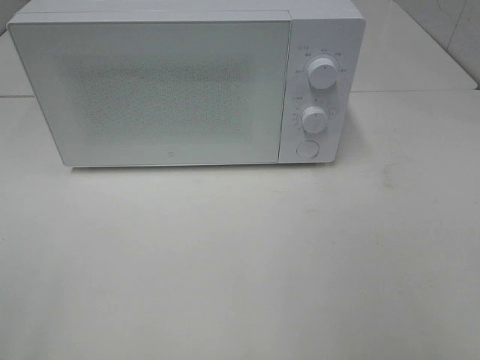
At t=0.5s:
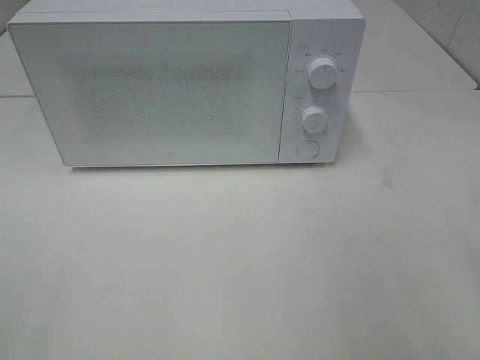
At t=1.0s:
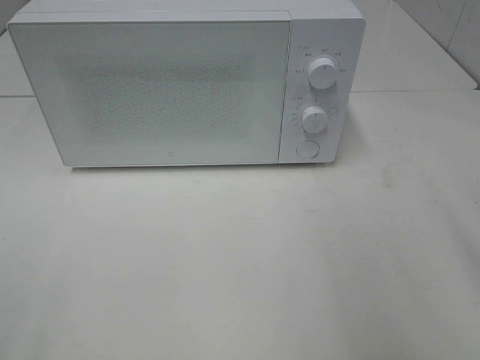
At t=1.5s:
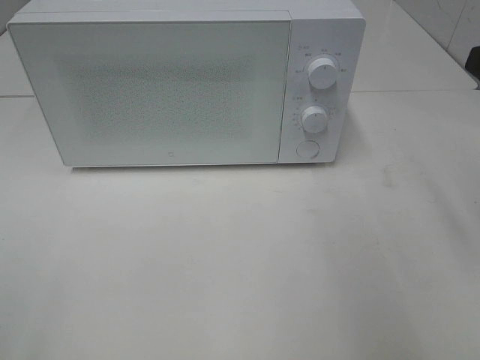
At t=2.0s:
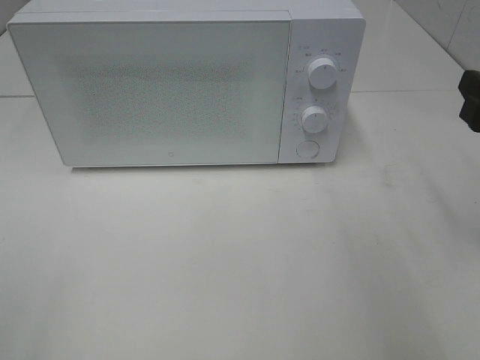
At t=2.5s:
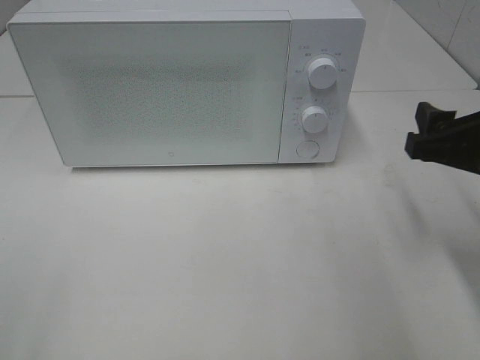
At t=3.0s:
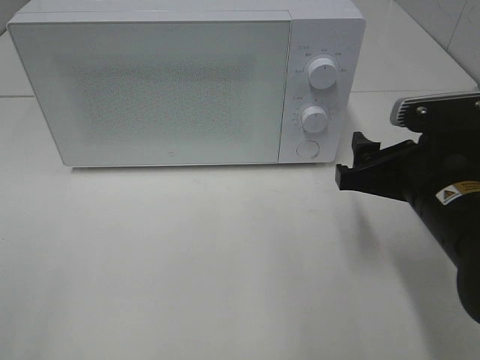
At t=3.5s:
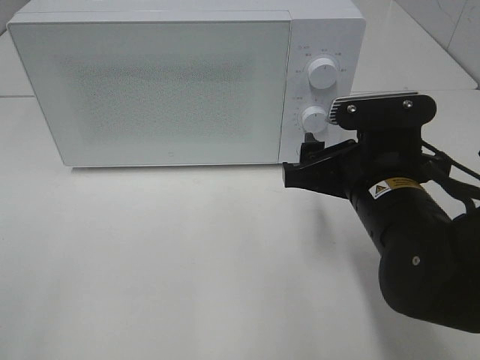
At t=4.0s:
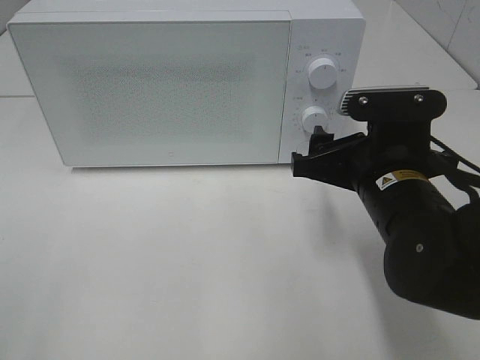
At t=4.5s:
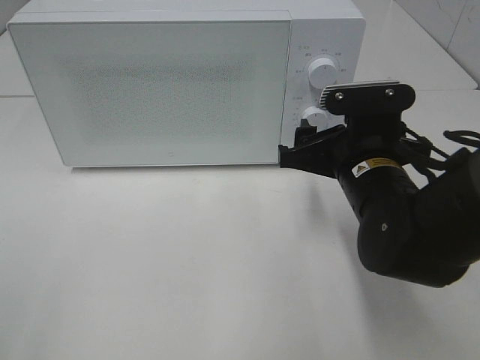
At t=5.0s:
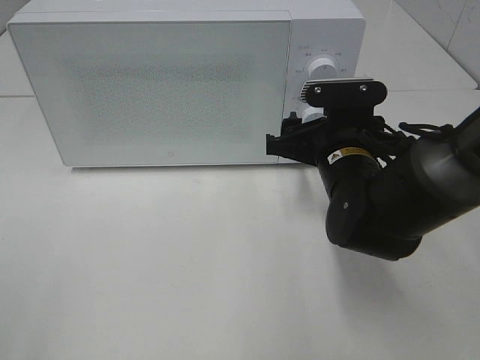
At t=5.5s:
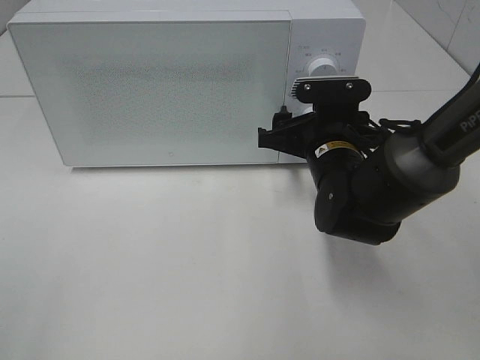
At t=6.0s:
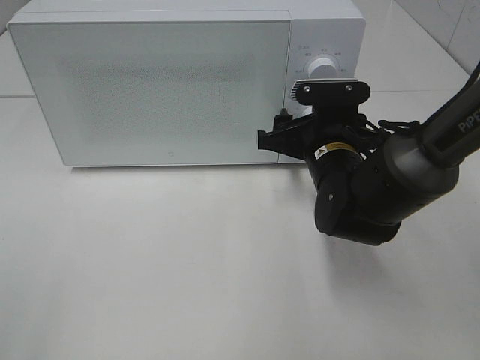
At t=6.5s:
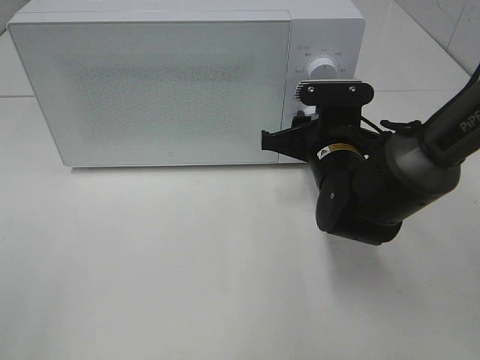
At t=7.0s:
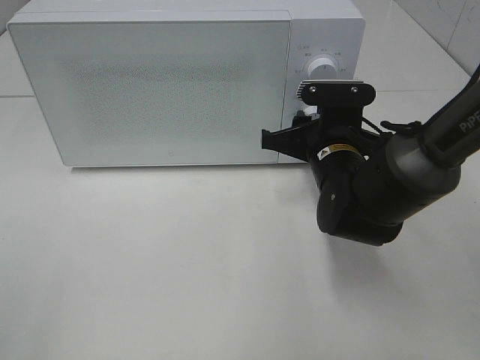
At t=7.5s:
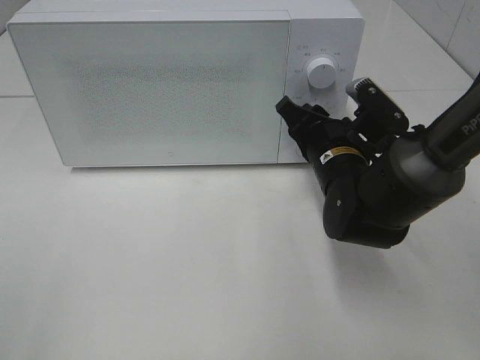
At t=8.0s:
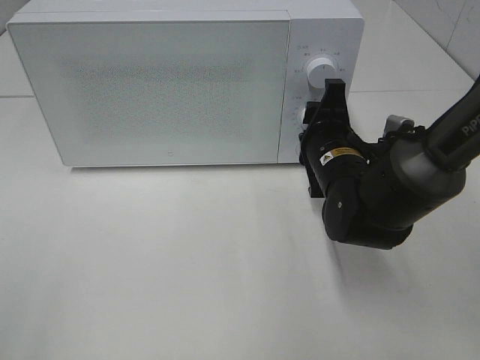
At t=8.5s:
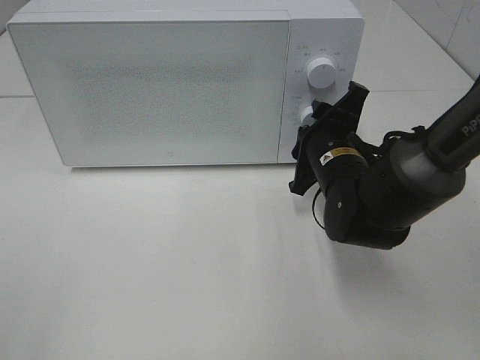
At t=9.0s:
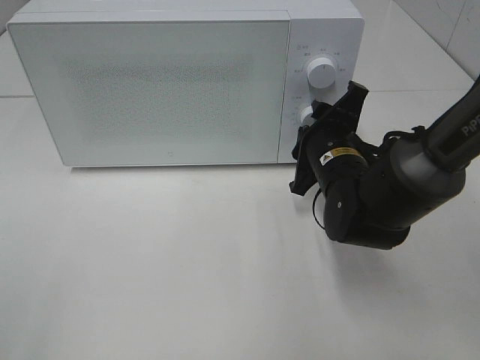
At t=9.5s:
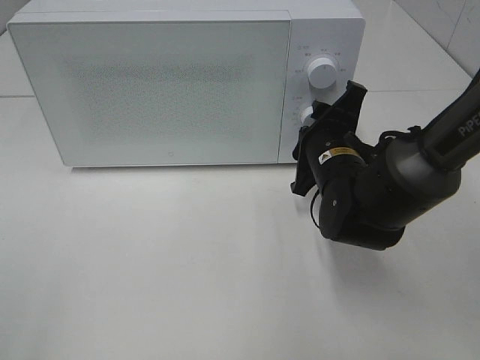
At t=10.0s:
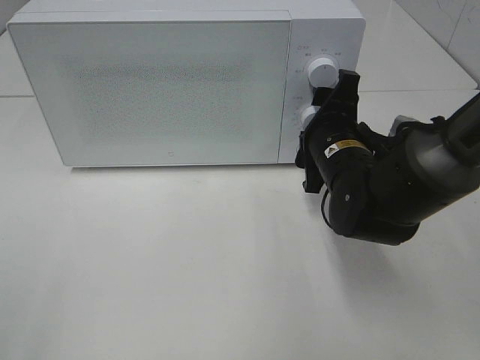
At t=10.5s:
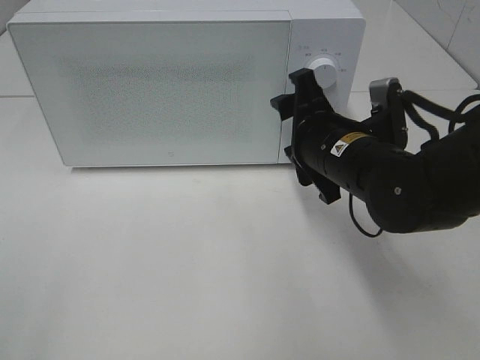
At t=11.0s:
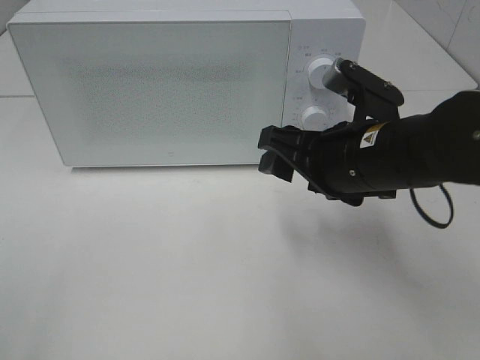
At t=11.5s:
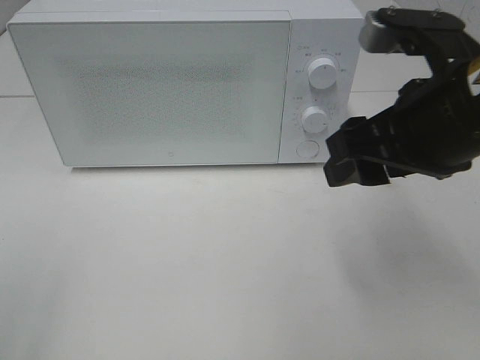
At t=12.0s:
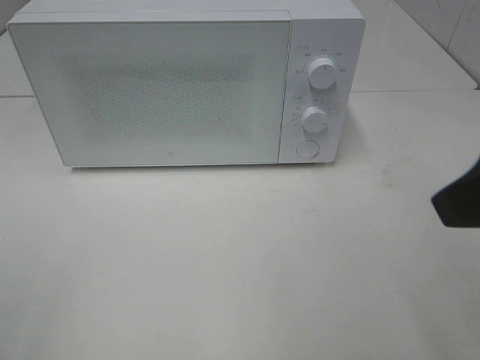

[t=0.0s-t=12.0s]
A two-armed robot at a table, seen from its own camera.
Task of the whole recording: Heat the burger.
Step, t=0.0s to t=9.5s: Right hand: twist timer button.
t=0.0s to t=2.0s: The right gripper shifts roughly 20 cm forward and downward.
t=2.0s to t=4.0s: The right gripper moves to the left and downward, roughly 15 cm.
t=4.0s to t=6.0s: The right gripper is displaced forward by roughly 10 cm.
t=6.0s to t=8.0s: The right gripper closes its fingers.
t=8.0s to t=10.0s: The grippers move only a little.
t=10.0s to t=12.0s: The right gripper moves upward, backward and to the right, about 30 cm.

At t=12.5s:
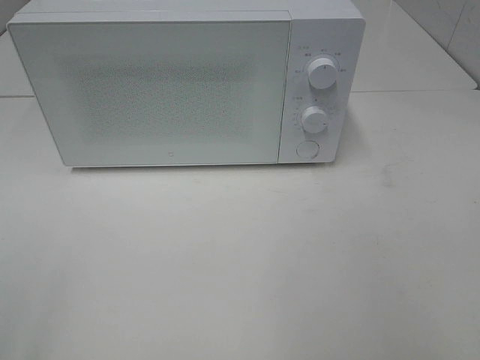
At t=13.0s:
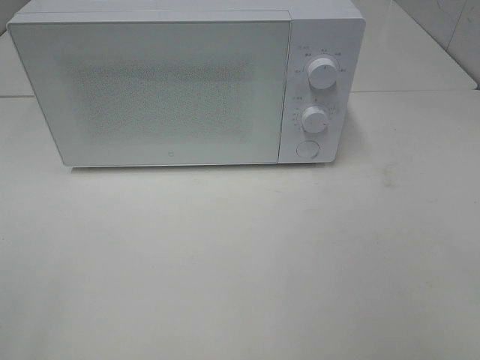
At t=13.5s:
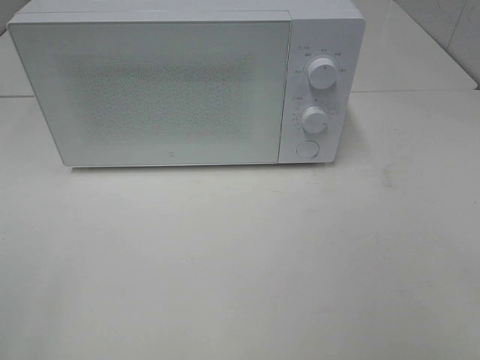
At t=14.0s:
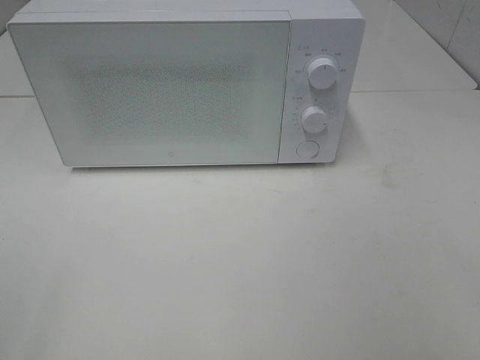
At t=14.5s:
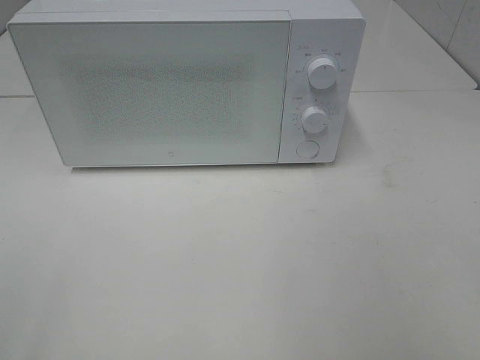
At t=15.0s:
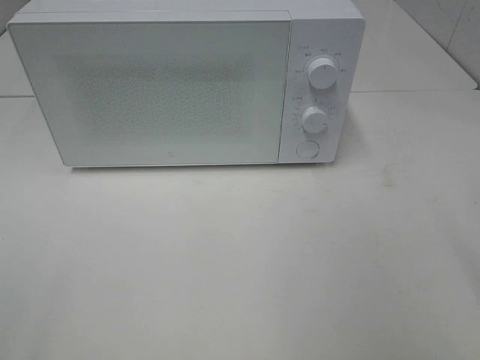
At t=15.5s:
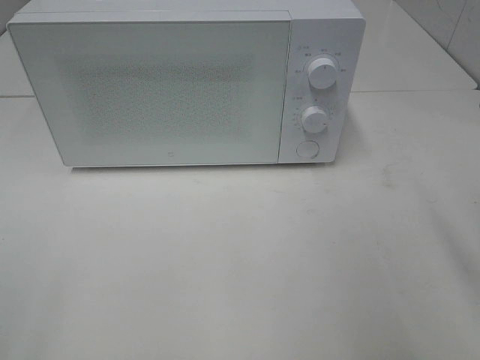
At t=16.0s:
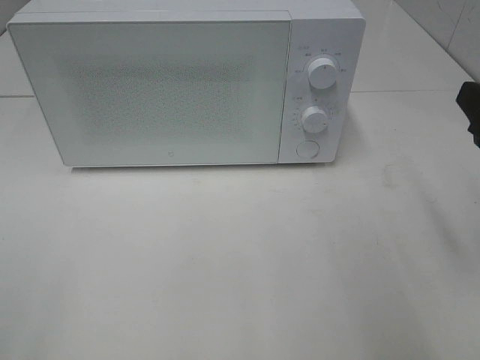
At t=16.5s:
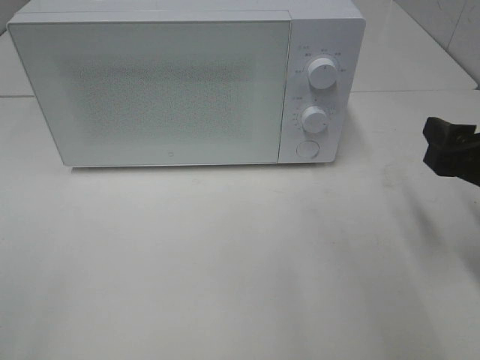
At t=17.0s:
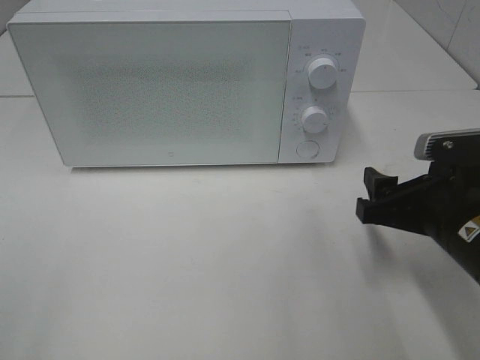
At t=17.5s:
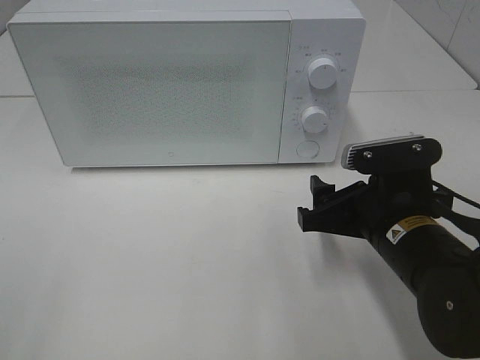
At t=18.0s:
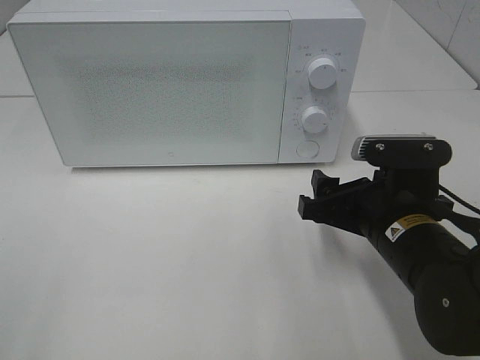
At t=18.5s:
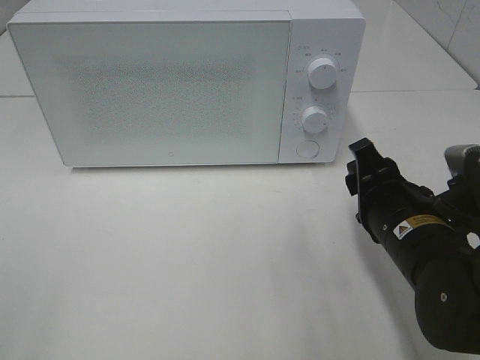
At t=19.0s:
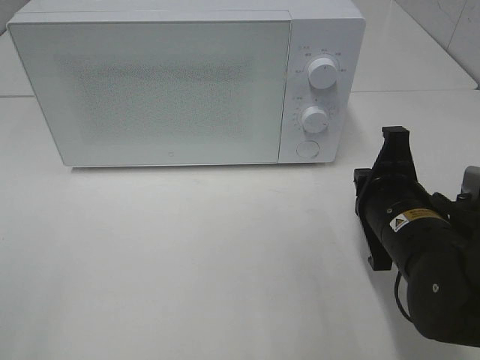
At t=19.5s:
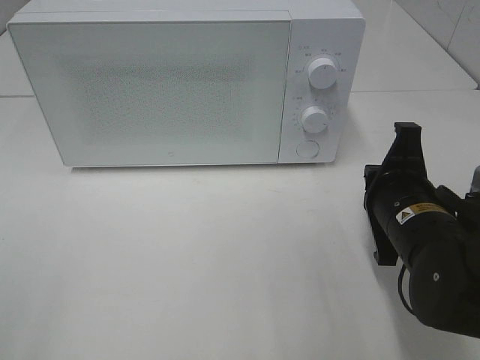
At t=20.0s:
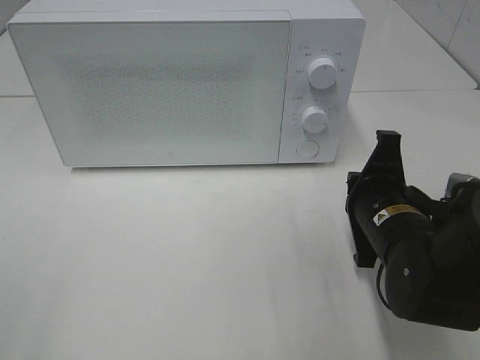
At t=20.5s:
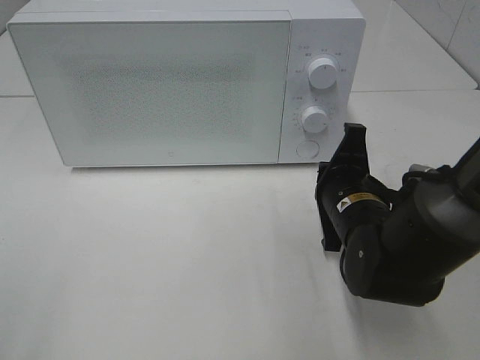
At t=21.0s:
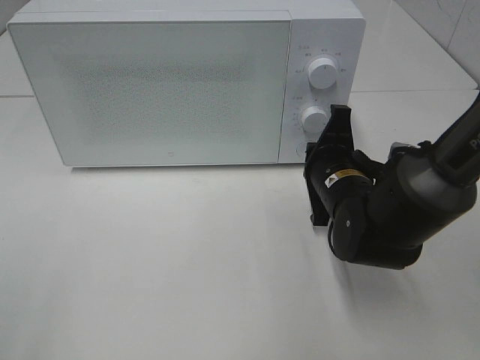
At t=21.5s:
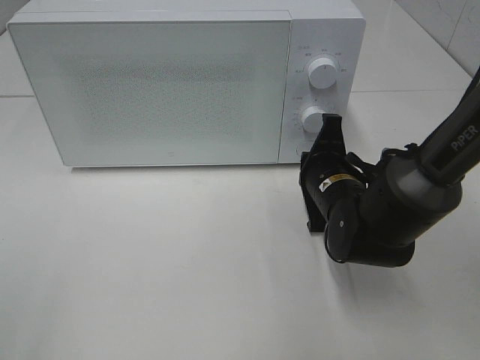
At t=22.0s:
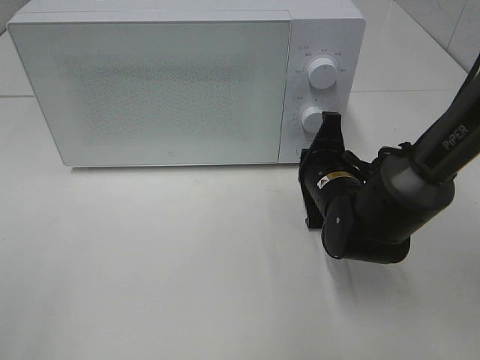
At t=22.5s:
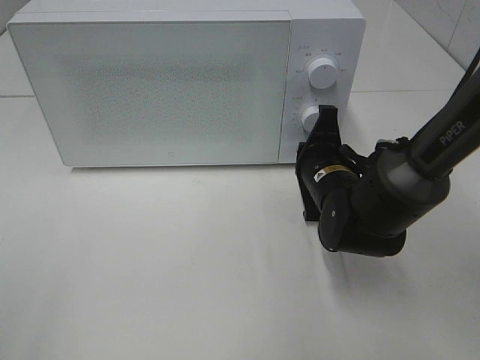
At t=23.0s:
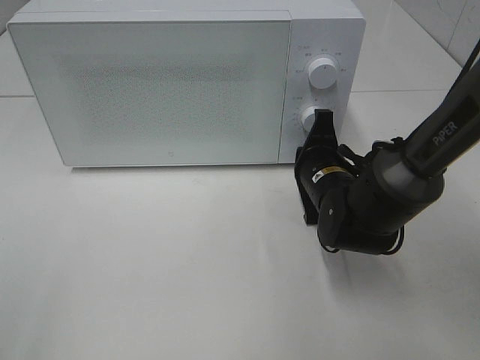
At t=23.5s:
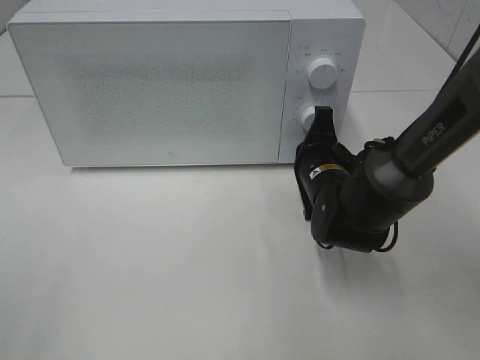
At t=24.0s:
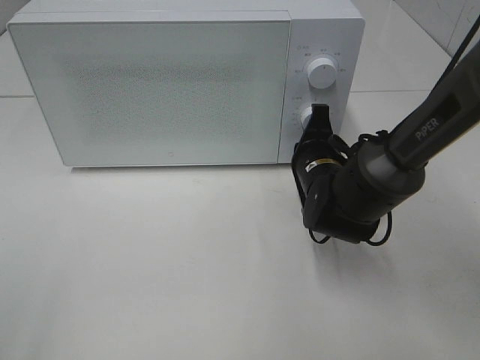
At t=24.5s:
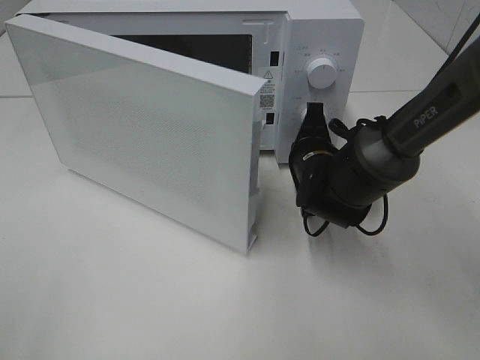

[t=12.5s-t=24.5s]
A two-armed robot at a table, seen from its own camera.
Task of the whole recording: Heat the burger.
t=14.5s to t=16.5s: The right gripper goes about 20 cm forward and downward.
t=16.5s to t=18.5s: The right gripper travels to the left and downward by approximately 10 cm.
t=18.5s to t=20.5s: The right gripper goes about 5 cm forward, and closes.
t=20.5s to t=22.5s: The right gripper moves forward, about 5 cm.

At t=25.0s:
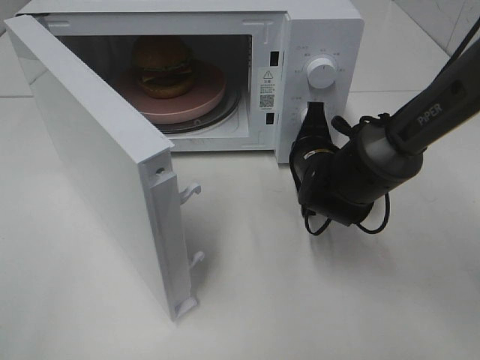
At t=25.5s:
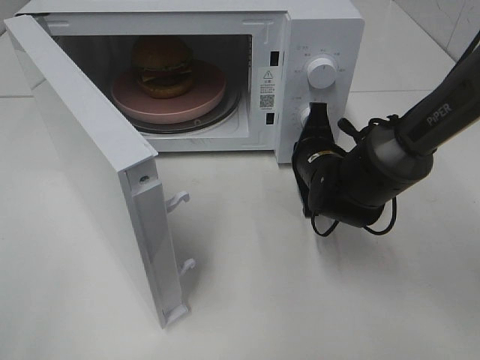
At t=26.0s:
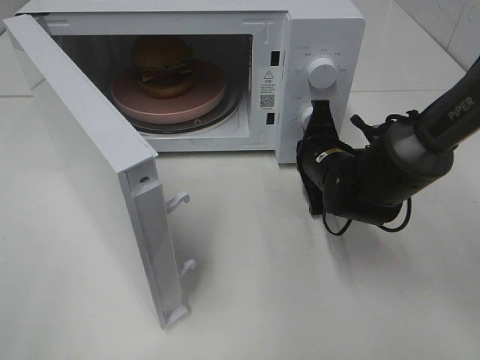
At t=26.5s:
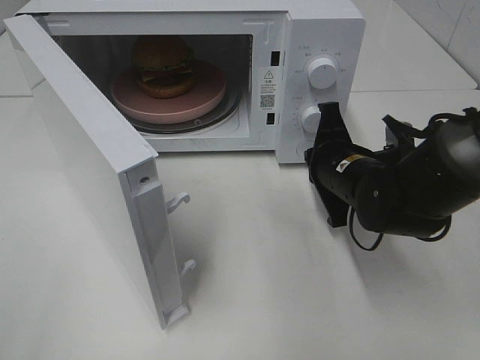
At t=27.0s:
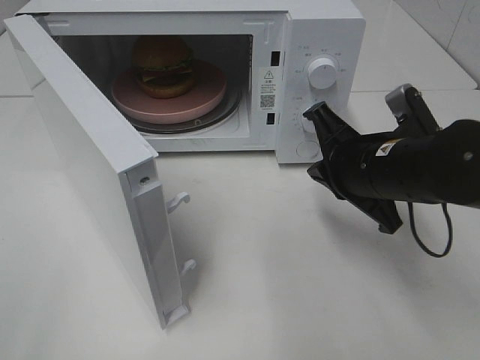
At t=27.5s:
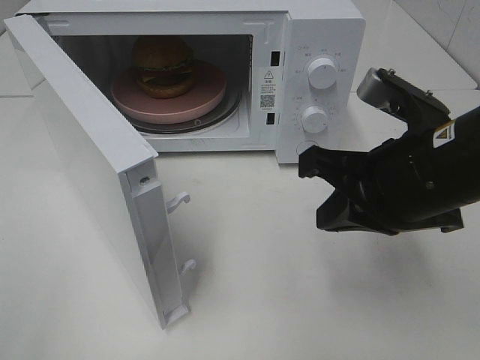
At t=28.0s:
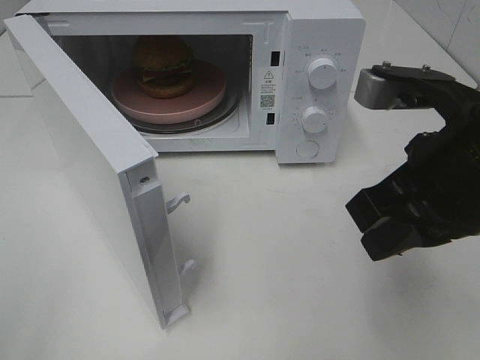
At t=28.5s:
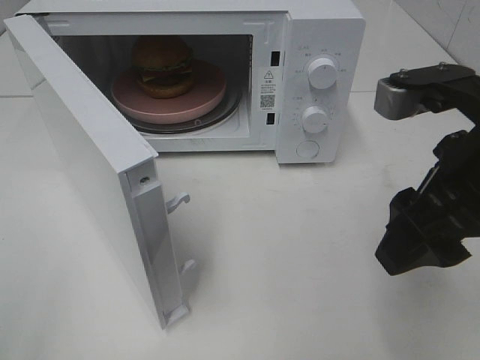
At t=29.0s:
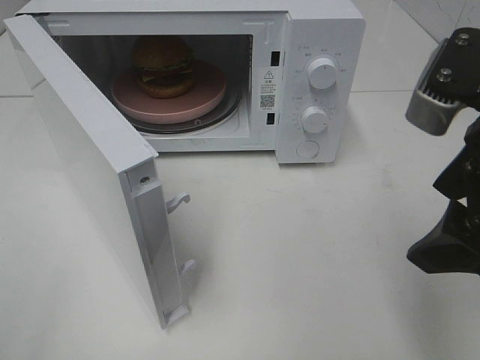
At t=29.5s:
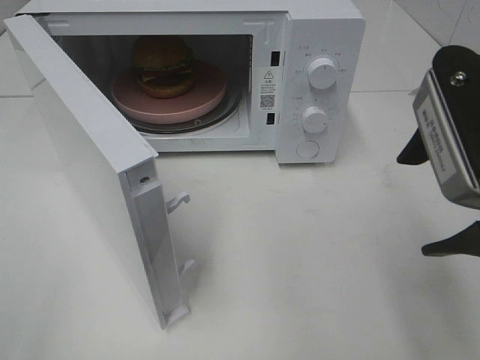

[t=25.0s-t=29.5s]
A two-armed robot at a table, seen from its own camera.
Task of the whole recording: Heat the burger.
t=25.0s to t=27.0s: The right gripper shifts some 15 cm backward and upward.
t=27.0s to t=29.5s: The right gripper heads upward and backward, covering some 15 cm, and opens up.
